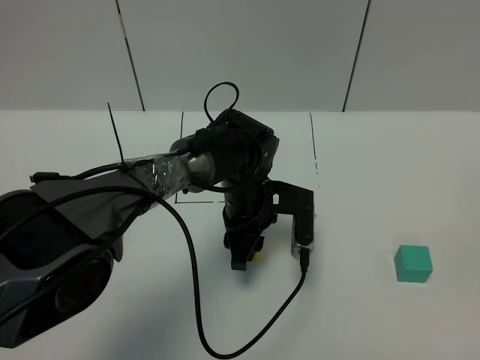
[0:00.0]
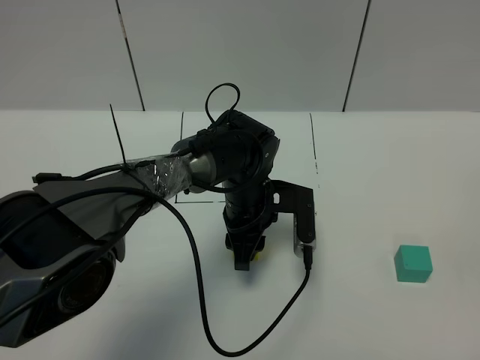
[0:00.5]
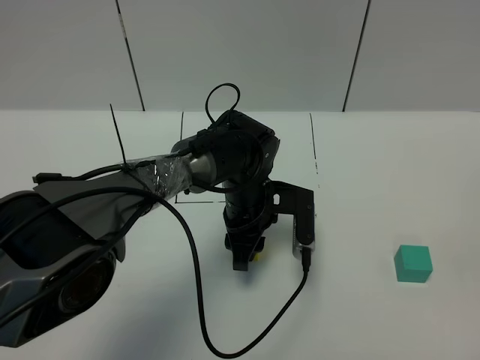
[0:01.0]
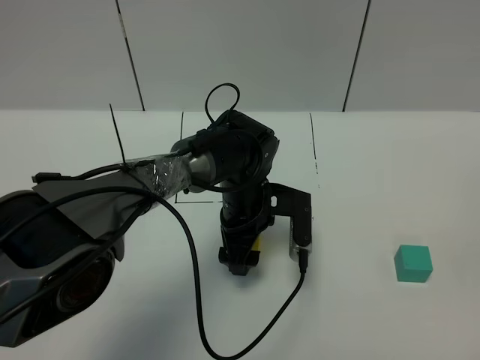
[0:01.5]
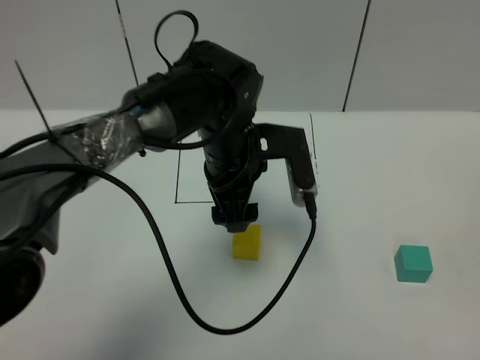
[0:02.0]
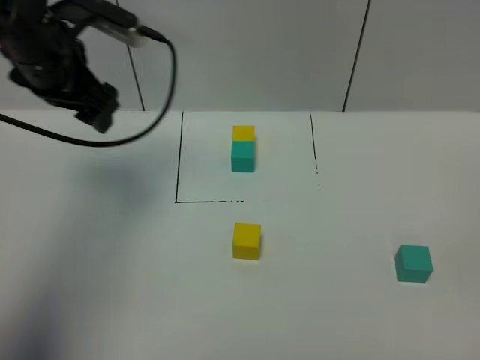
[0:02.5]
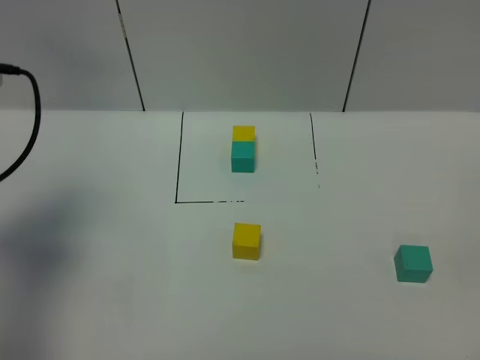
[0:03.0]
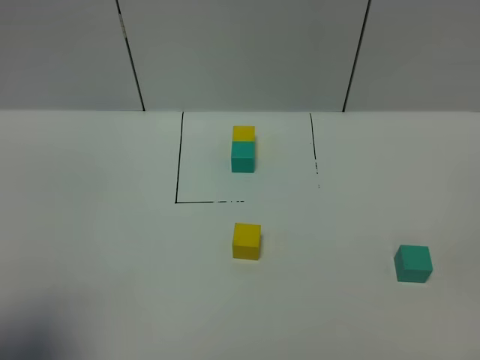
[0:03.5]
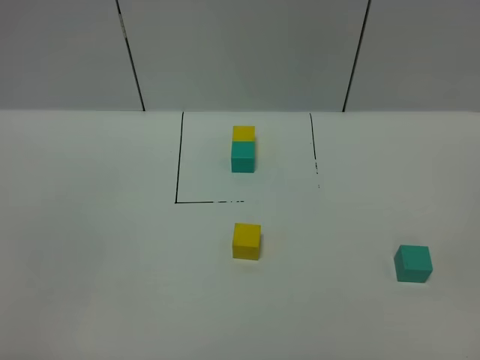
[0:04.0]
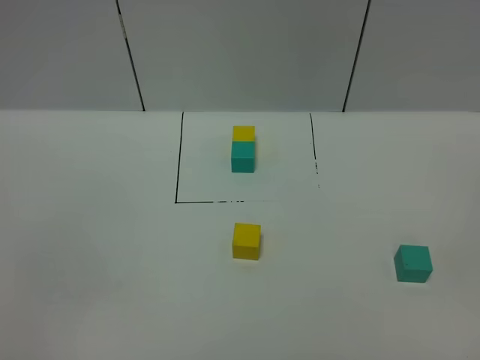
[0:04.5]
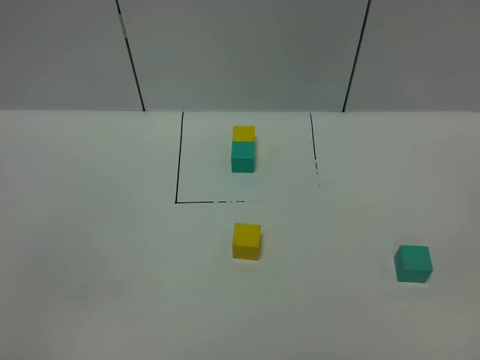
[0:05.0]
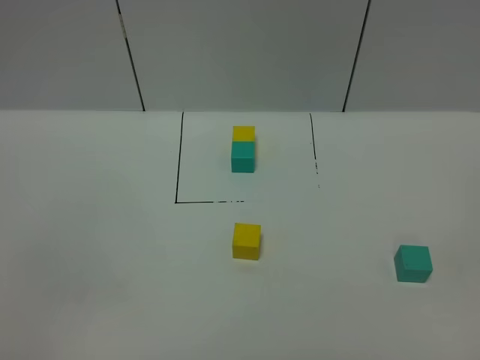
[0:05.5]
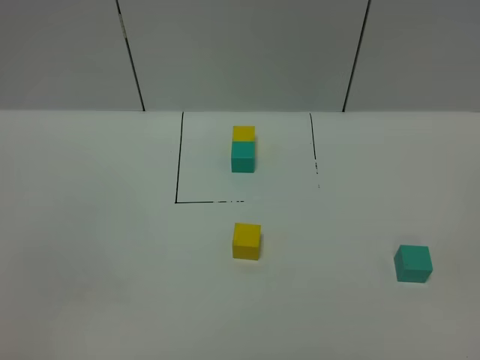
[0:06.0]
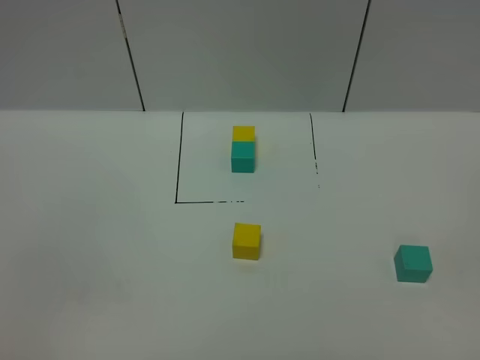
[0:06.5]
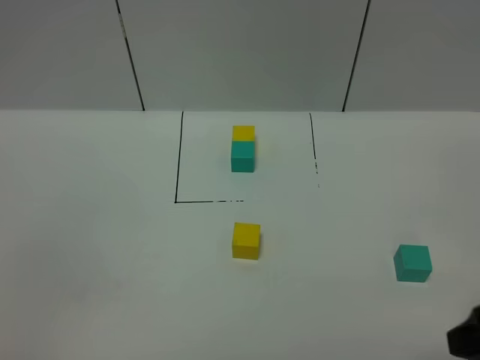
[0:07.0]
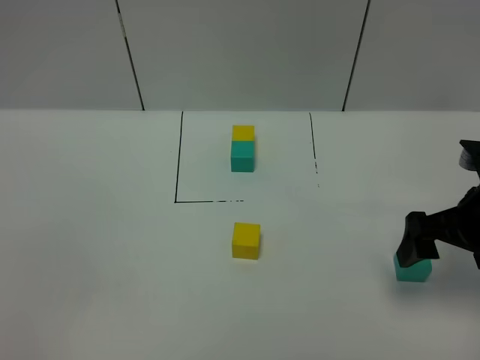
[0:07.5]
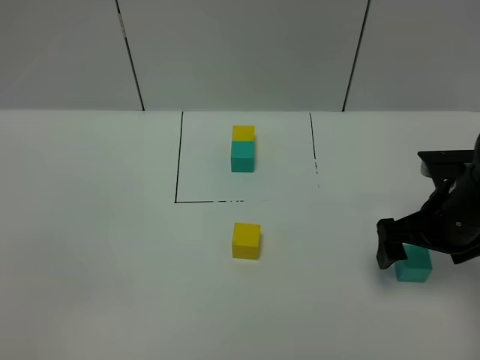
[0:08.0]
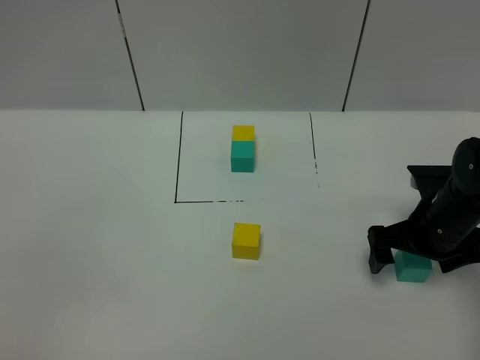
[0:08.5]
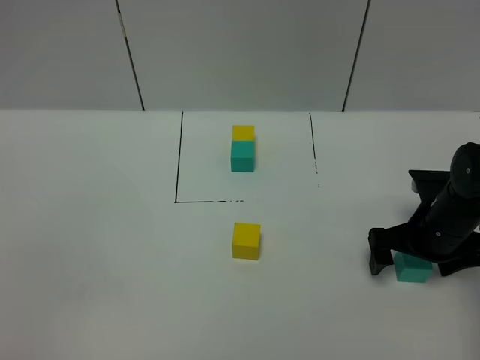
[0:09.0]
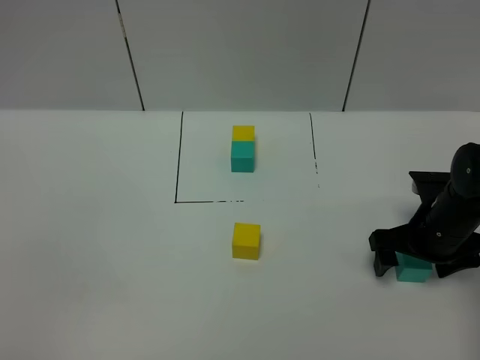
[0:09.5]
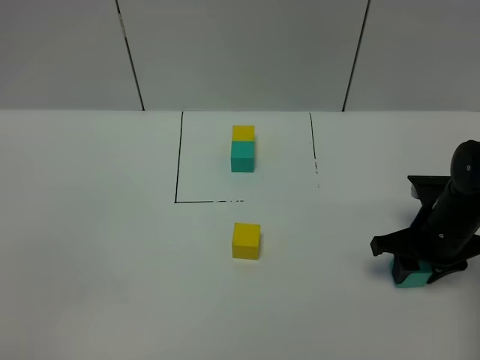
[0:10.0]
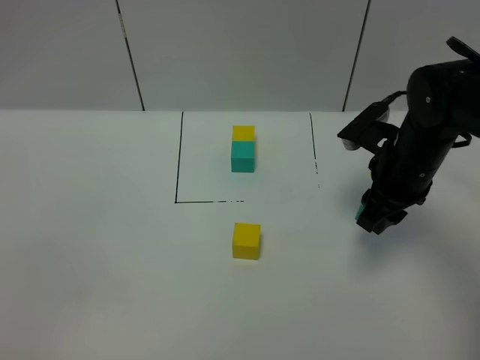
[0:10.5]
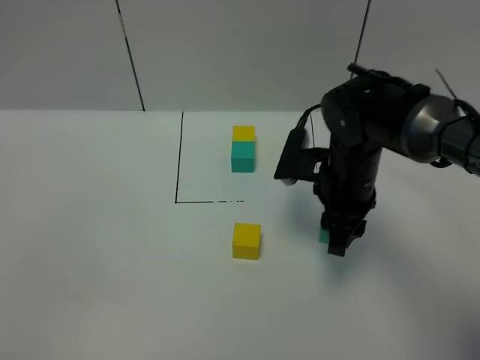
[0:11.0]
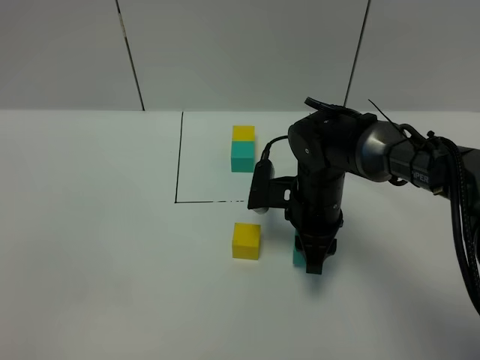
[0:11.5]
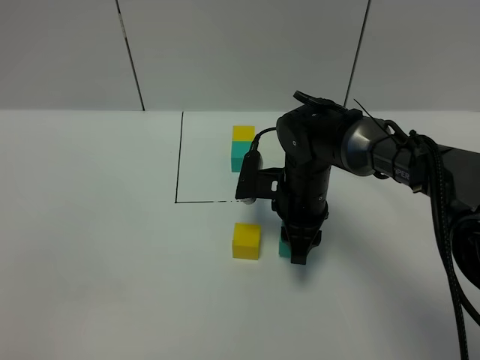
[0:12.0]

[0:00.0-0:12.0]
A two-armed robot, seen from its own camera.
Task of the whole recording: According to the building block template in front, assemble the scattered blocks together.
0:00.0 to 0:02.0: The left gripper moves upward, about 10 cm, and opens up.
0:02.0 to 0:04.0: The left gripper goes about 40 cm backward and to the left.
0:06.0 to 0:08.0: The right gripper heads forward, covering approximately 30 cm.
0:08.0 to 0:10.0: The right gripper changes place by about 5 cm, and closes.
0:10.0 to 0:12.0: The right gripper is displaced to the left by approximately 20 cm.

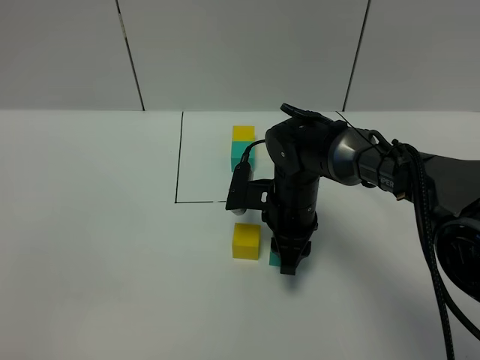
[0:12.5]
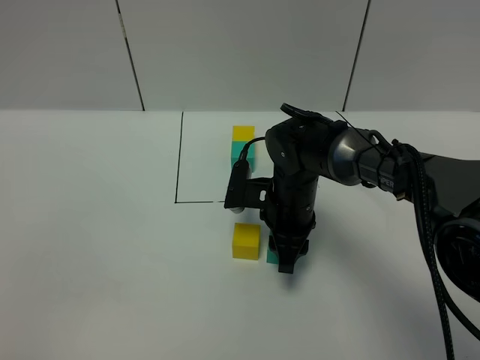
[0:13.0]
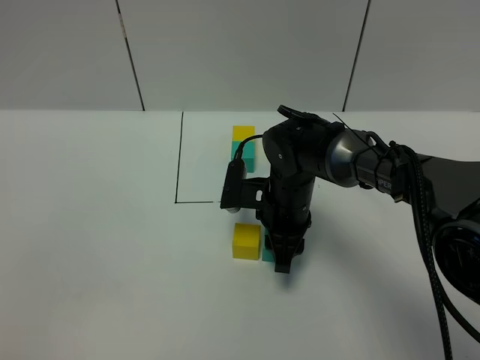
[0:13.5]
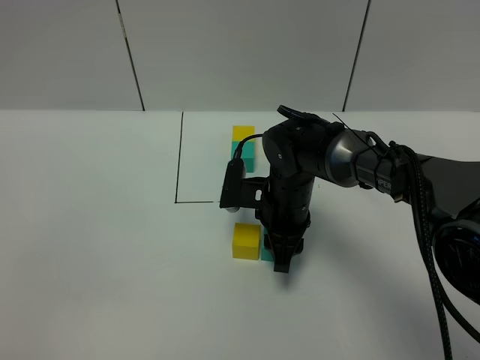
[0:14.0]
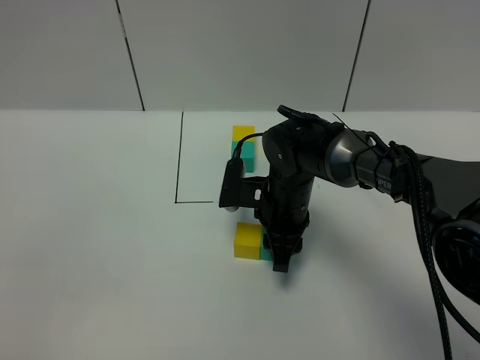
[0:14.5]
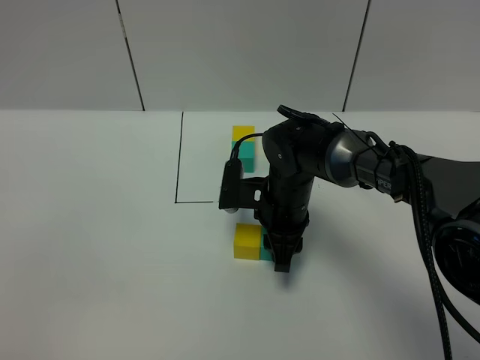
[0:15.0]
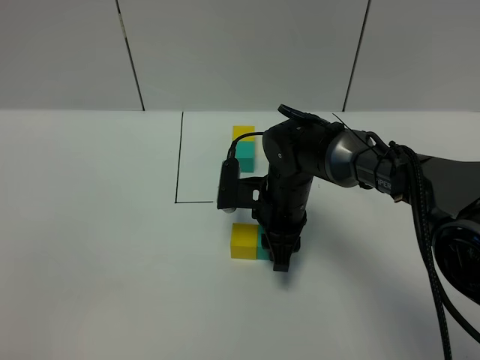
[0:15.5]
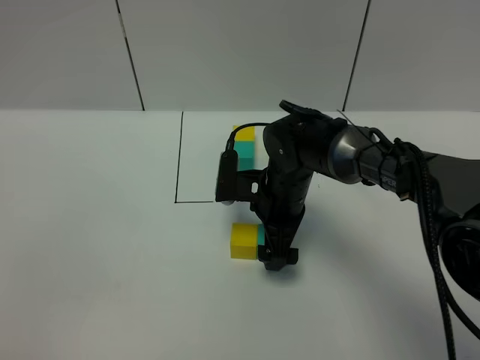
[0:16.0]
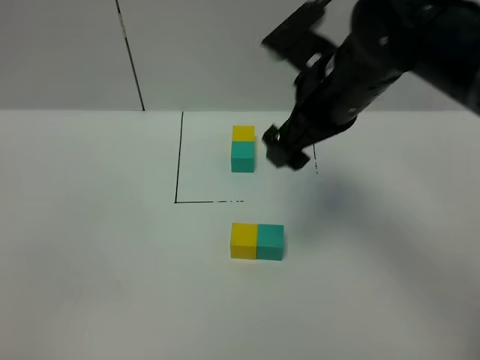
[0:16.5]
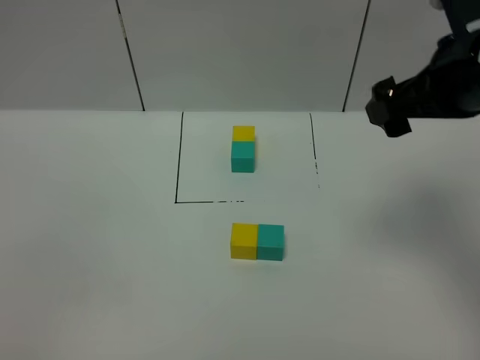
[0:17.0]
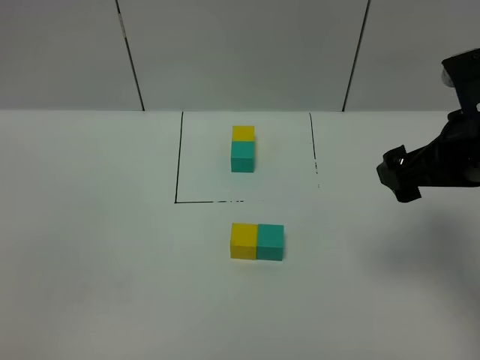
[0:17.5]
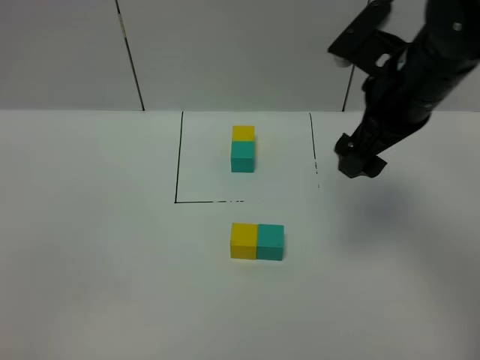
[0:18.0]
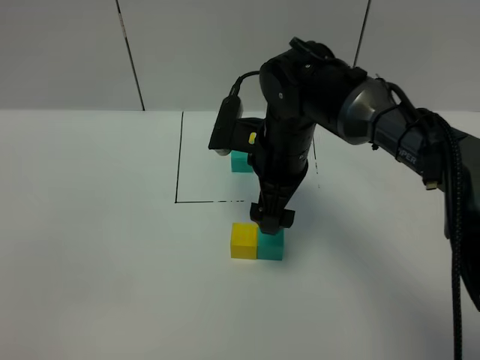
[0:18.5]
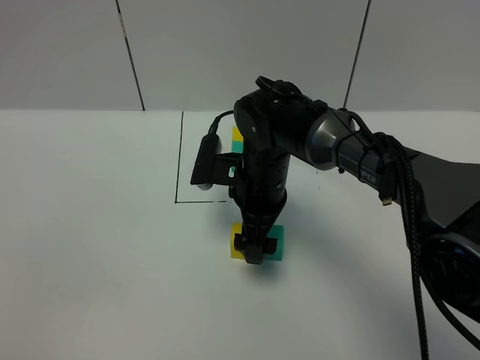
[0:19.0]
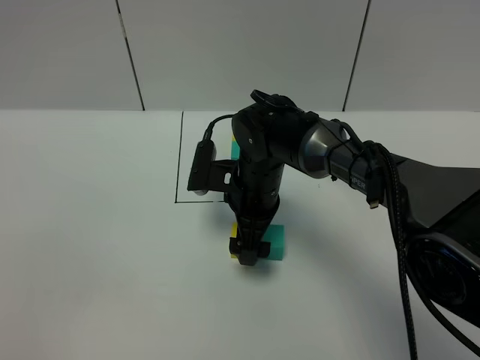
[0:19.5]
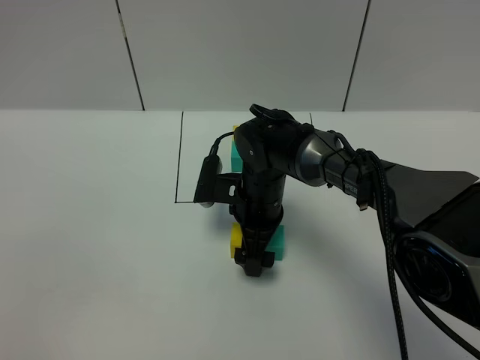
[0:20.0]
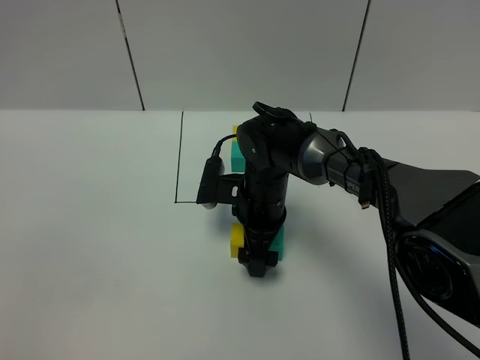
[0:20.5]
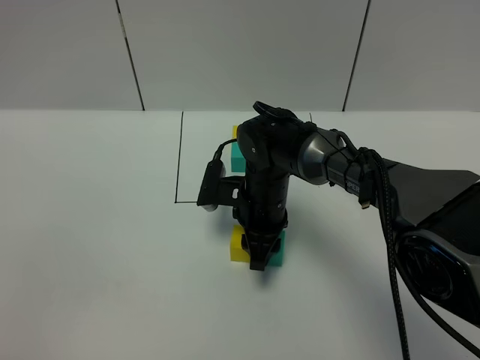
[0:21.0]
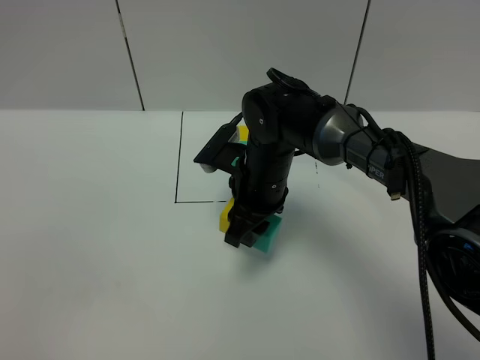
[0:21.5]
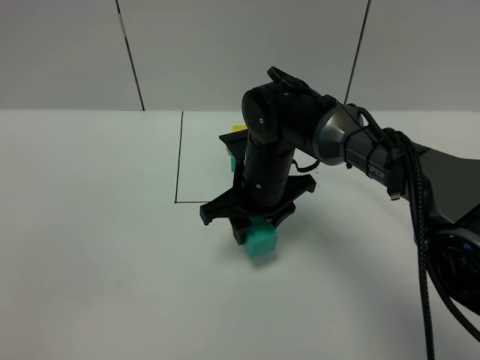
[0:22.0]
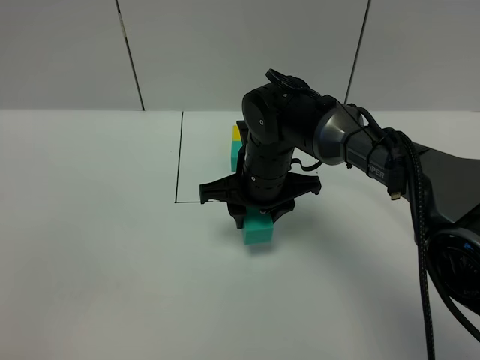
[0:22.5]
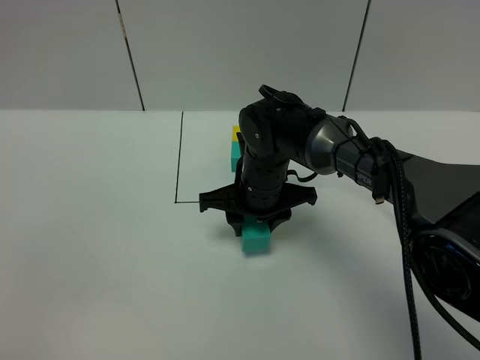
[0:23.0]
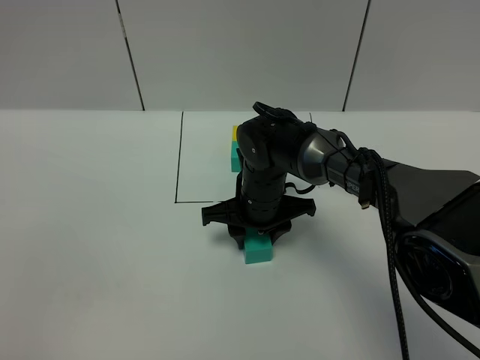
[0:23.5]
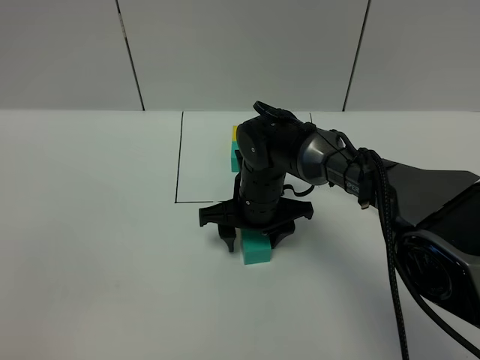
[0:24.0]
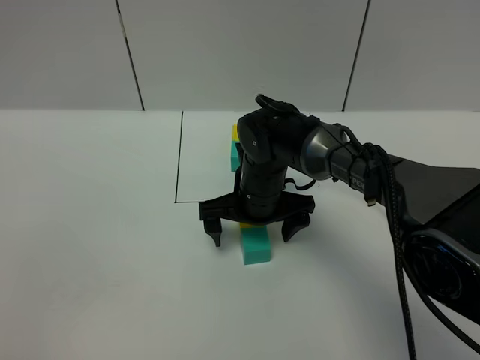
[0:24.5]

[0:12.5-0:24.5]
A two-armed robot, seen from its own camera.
Task of the whole recording: According to the building block template in front, assemble the scattered blocks together.
Step, 0:12.5 to 0:16.0: Put the green cube on the right of the yellow cube.
0:12.5 to 0:14.5: The two grippers keep their place.
0:14.5 to 0:16.5: The right gripper travels upward by approximately 20 cm, and opens its fingers.
0:16.5 to 0:18.5: The right gripper goes about 15 cm downward and to the left.
0:18.5 to 0:20.5: The right gripper heads downward, covering some 10 cm.
0:20.5 to 0:22.5: The right gripper goes roughly 5 cm upward, and closes.
0:22.5 to 0:24.5: The right gripper opens.

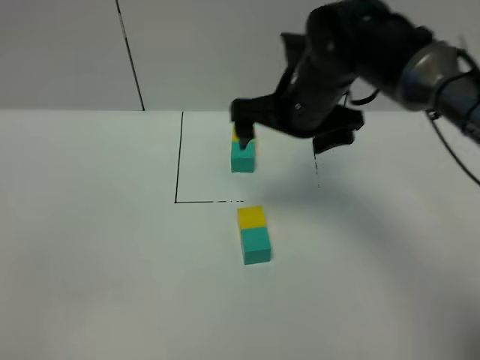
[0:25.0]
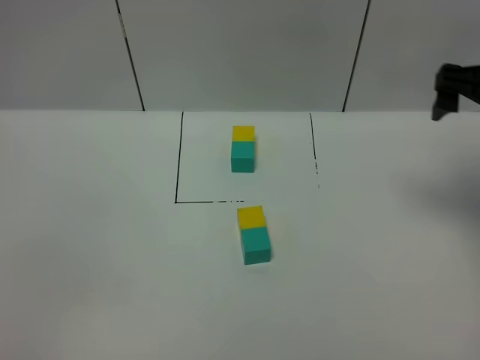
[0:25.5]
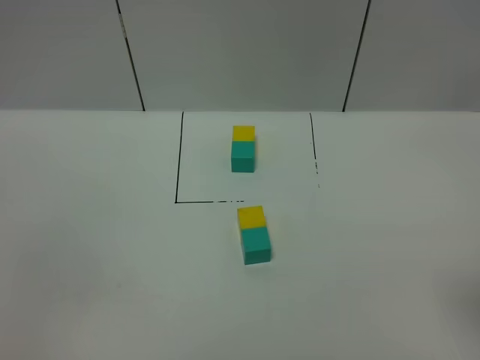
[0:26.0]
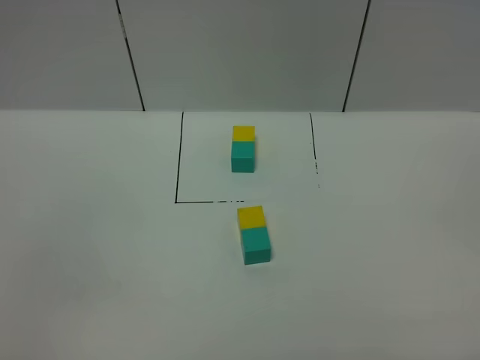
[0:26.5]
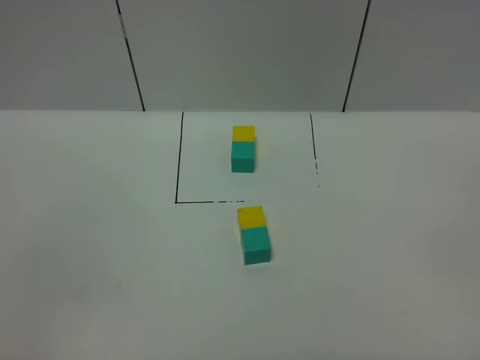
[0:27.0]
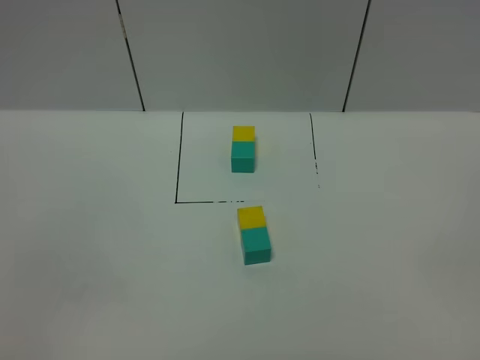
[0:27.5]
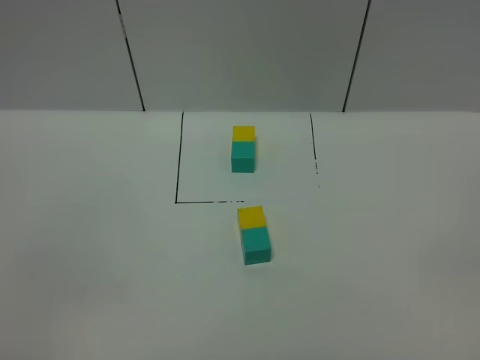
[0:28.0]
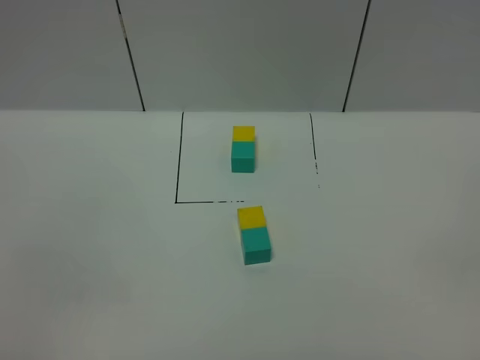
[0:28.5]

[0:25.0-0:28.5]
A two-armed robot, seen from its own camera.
Task of the whole recording: According to the building block template in front, assemble the scattered blocks together.
0:25.0 to 0:27.0: The right gripper goes some 40 cm backward and to the right.
